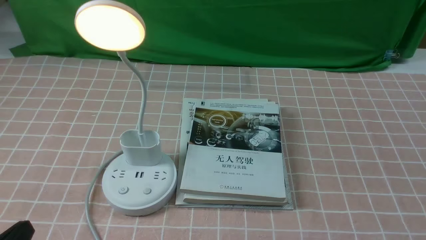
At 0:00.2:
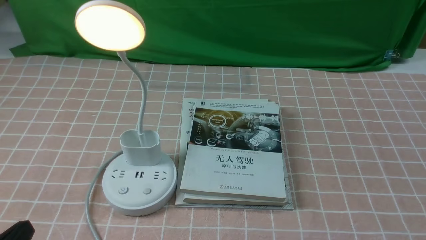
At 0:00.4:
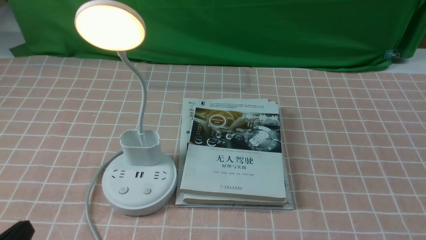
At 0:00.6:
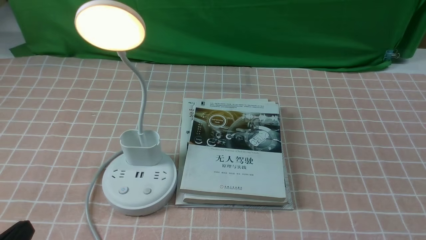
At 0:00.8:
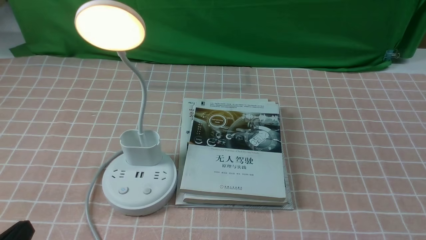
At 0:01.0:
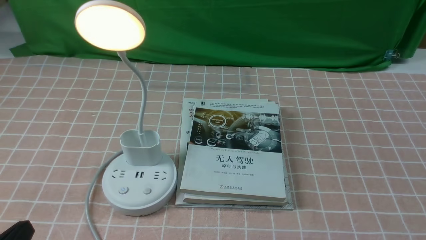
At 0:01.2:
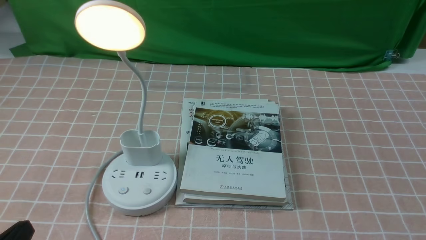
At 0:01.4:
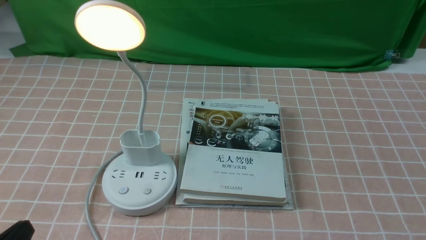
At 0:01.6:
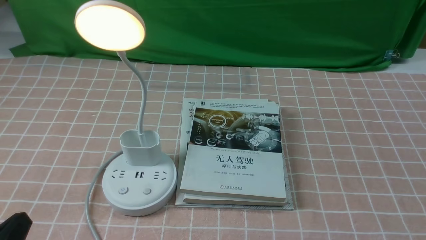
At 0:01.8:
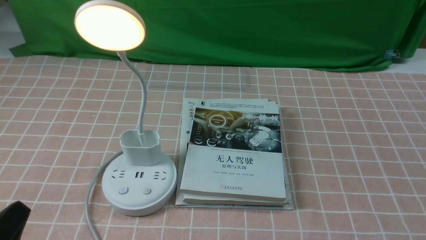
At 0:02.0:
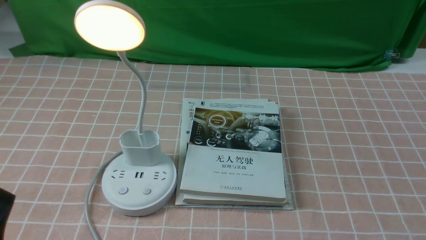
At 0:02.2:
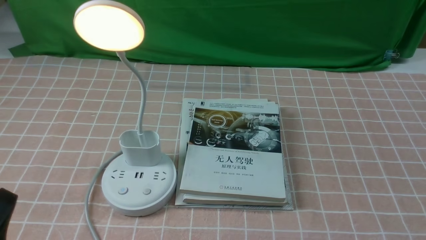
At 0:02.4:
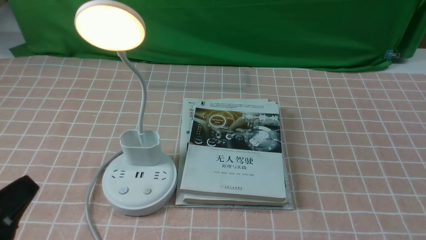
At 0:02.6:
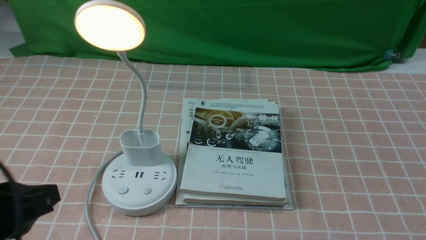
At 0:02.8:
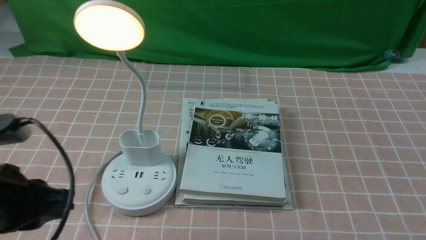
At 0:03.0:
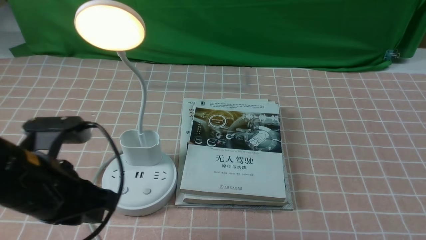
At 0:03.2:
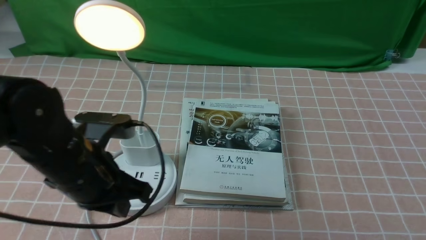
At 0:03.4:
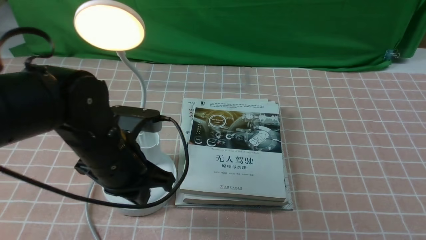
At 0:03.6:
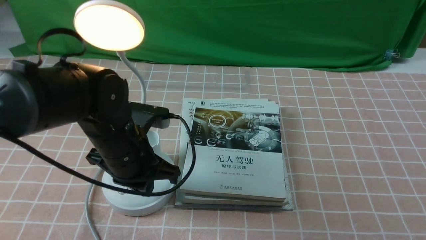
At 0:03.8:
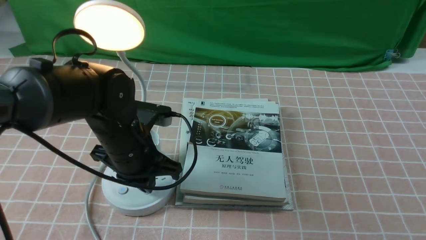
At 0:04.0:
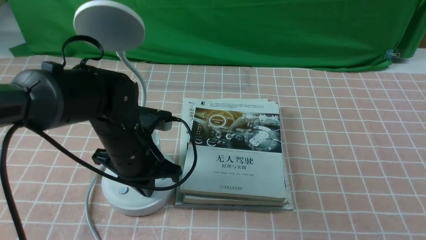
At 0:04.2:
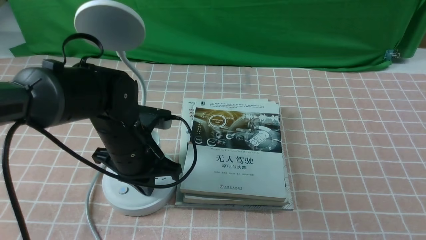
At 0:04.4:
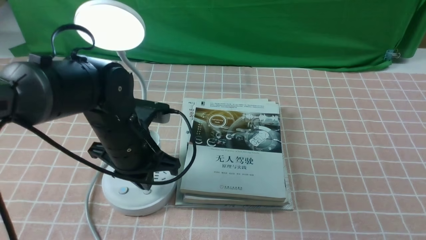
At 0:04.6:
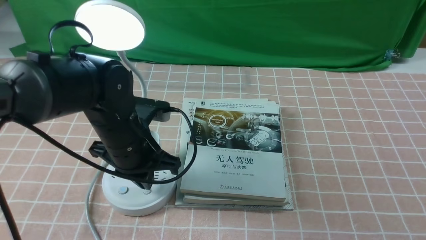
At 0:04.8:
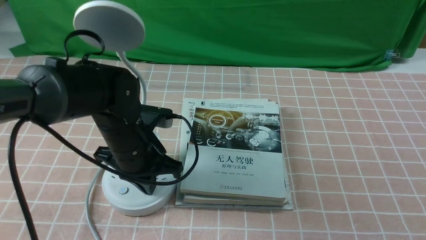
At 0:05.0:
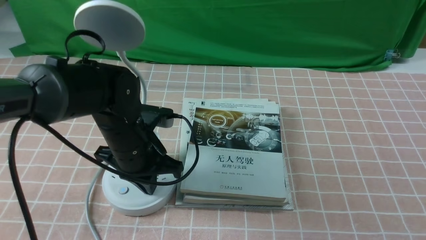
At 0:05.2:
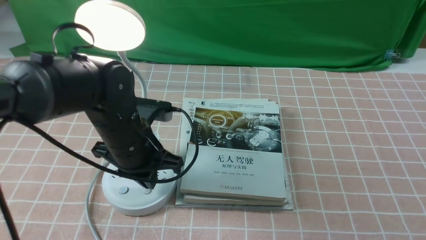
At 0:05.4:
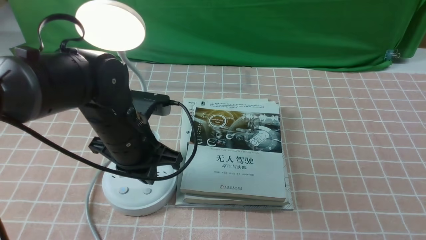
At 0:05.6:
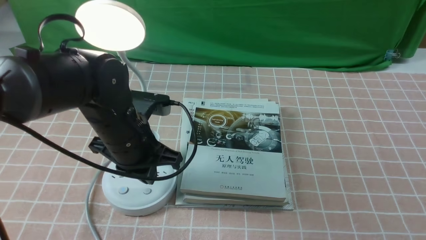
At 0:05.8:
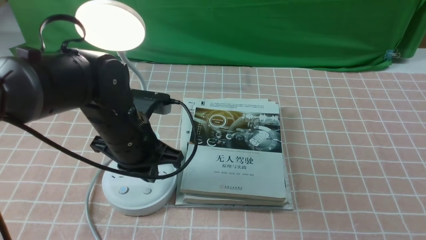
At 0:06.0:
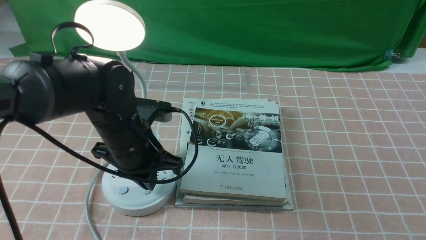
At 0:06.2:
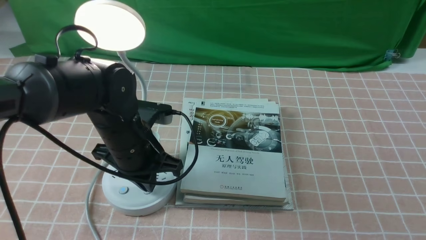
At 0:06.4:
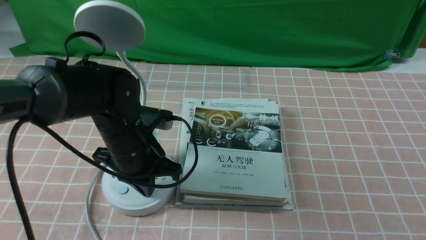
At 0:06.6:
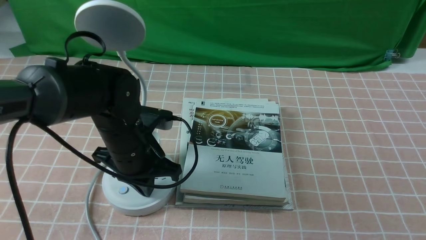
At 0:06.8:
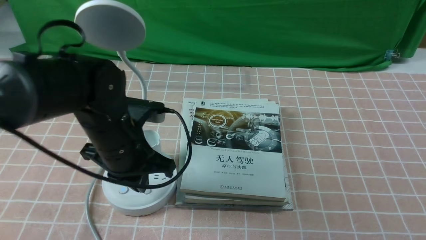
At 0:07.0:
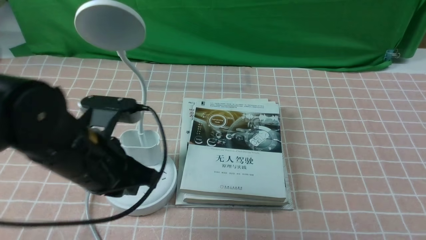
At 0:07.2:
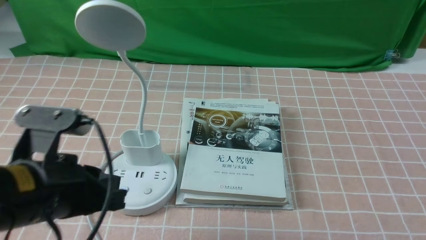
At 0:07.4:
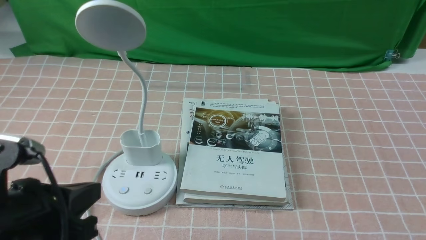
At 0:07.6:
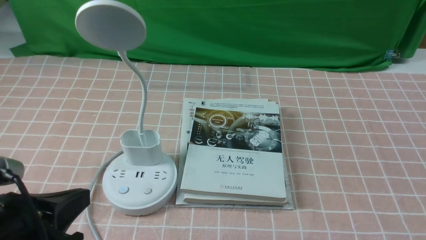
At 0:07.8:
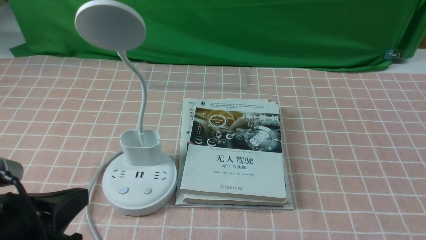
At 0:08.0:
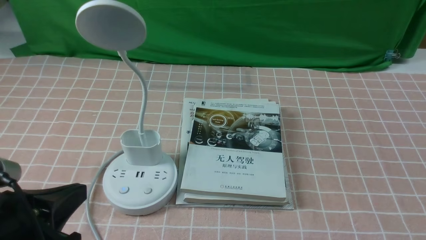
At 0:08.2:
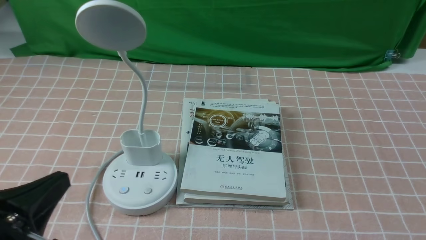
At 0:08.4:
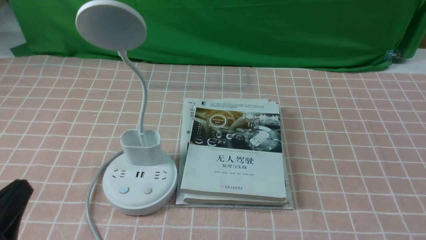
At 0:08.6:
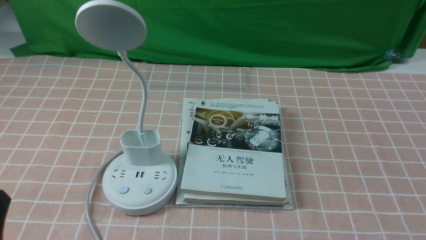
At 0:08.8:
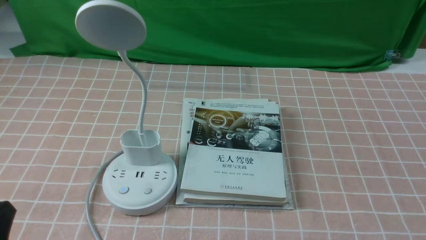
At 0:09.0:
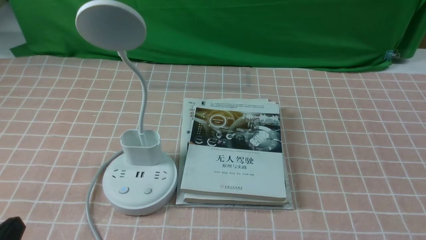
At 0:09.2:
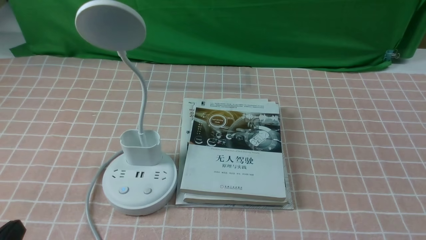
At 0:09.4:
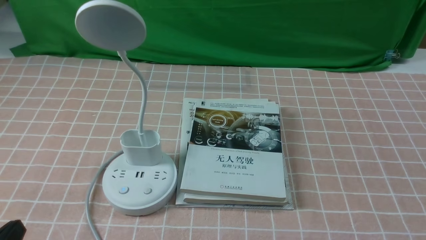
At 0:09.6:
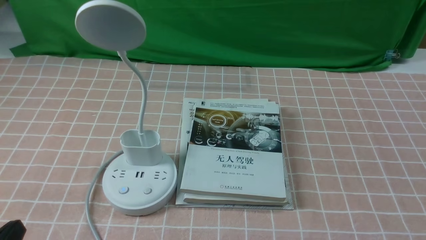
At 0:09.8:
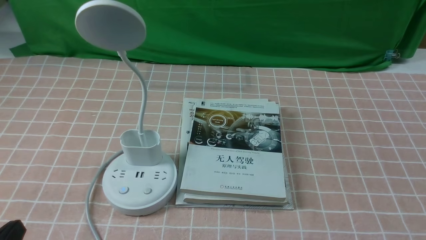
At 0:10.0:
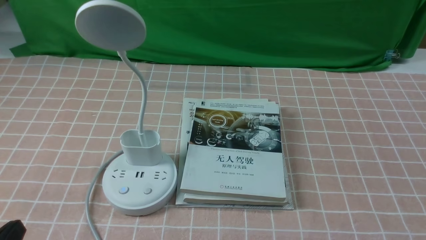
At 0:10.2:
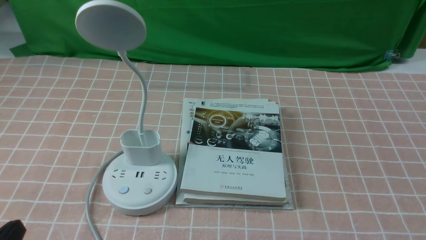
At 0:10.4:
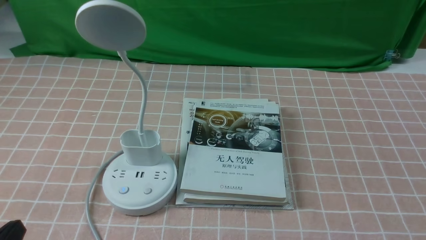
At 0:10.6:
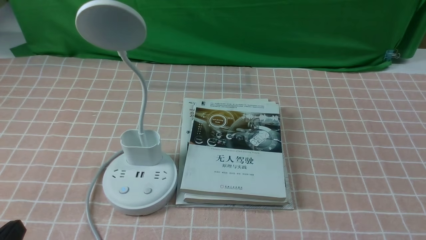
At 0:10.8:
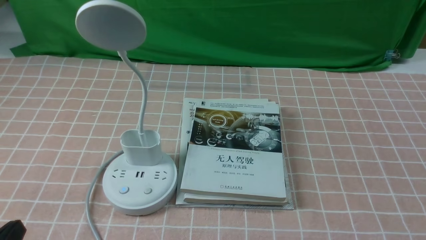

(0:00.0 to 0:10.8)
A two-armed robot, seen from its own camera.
Task of the whole recording: turn off the table lamp on the pink coffee tablecloth by hand.
Step, 0:00.0 - 0:06.8: use the left arm to press the button switch on the lamp holder.
0:01.6 - 0:03.0: The left gripper moves forward, upward and to the right, about 15 cm.
0:03.0 - 0:04.6: The left gripper is displaced forward, to the right and downward by about 15 cm.
0:04.6 - 0:06.2: There are only small adjustments of the grippers.
0:06.2 - 0:07.8: The left gripper shifts about 20 cm backward and to the left.
0:07.8 - 0:09.2: The left gripper goes approximately 10 cm downward and backward.
0:09.2 - 0:10.8: The two grippers keep their place.

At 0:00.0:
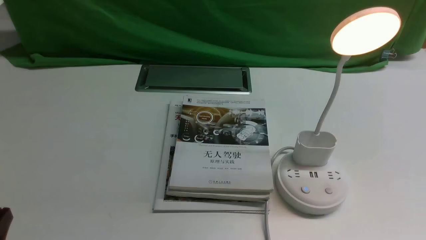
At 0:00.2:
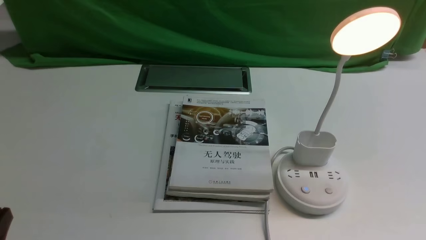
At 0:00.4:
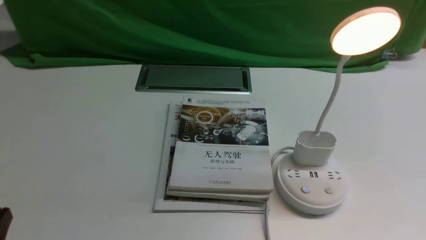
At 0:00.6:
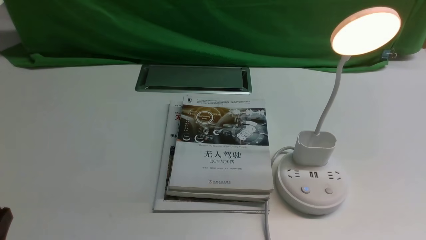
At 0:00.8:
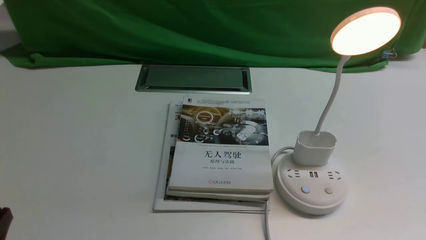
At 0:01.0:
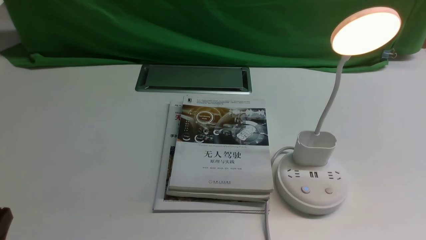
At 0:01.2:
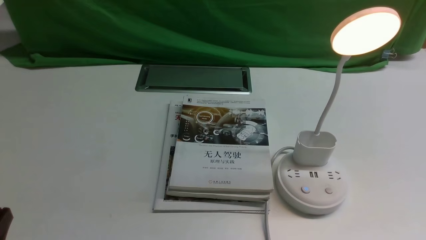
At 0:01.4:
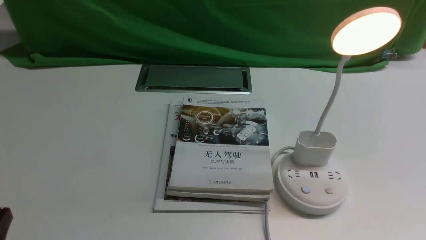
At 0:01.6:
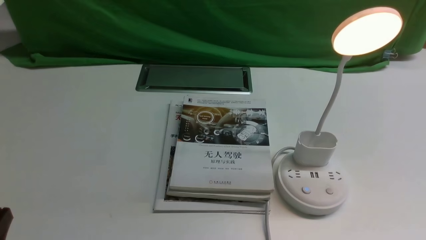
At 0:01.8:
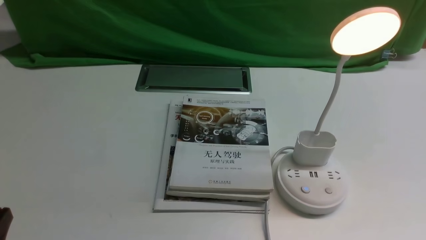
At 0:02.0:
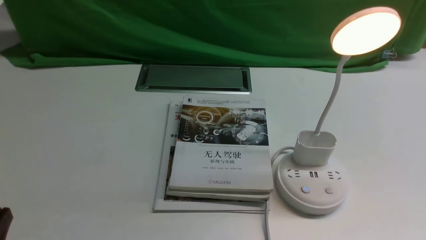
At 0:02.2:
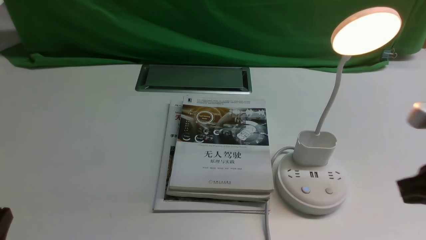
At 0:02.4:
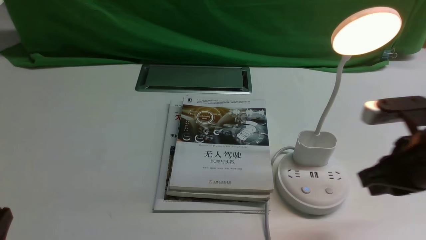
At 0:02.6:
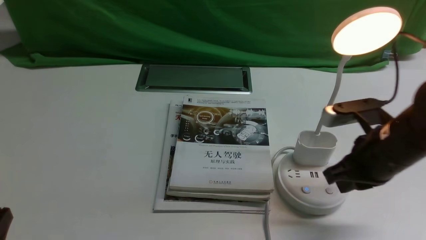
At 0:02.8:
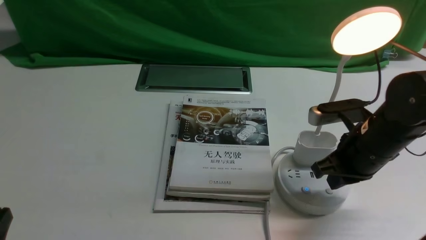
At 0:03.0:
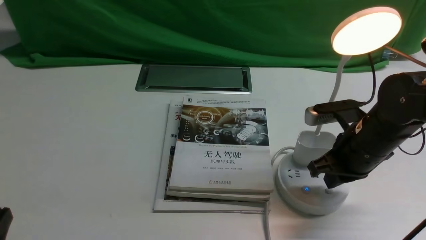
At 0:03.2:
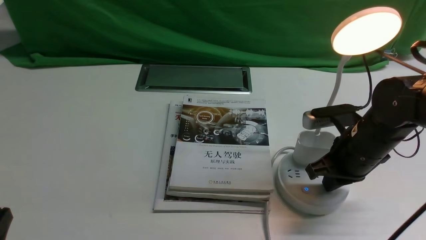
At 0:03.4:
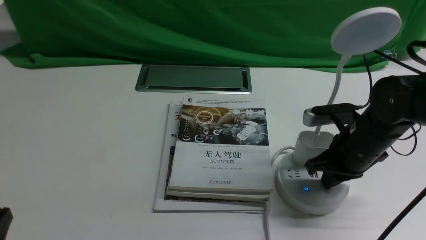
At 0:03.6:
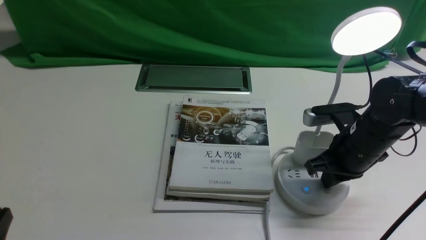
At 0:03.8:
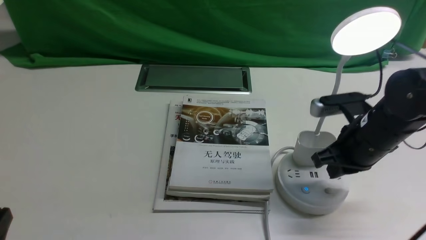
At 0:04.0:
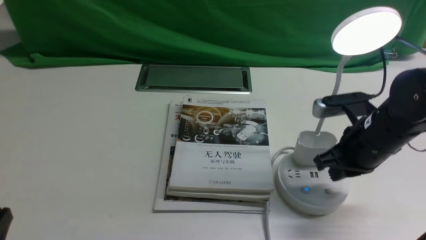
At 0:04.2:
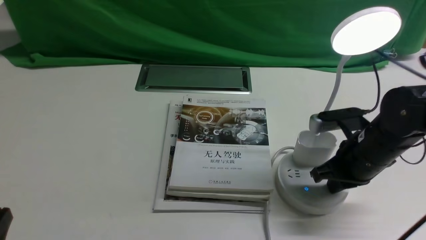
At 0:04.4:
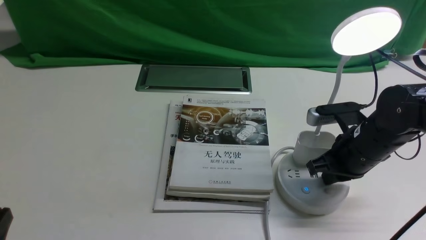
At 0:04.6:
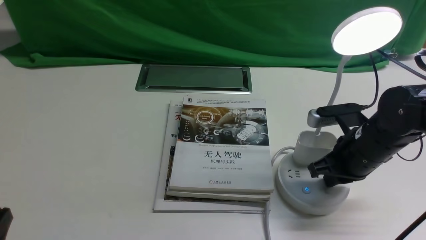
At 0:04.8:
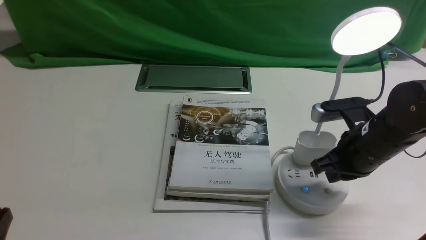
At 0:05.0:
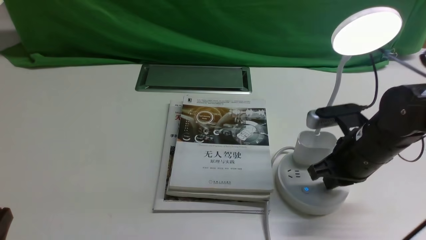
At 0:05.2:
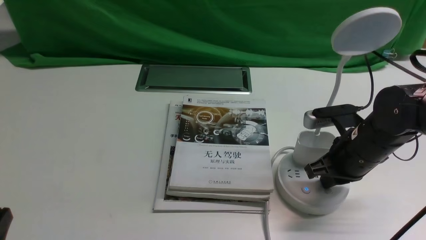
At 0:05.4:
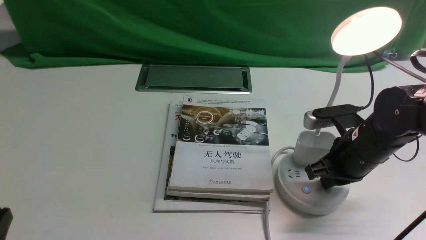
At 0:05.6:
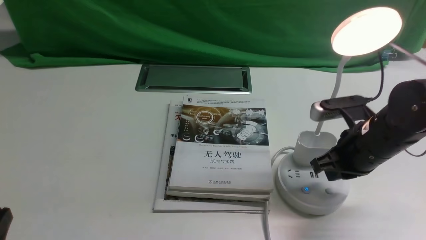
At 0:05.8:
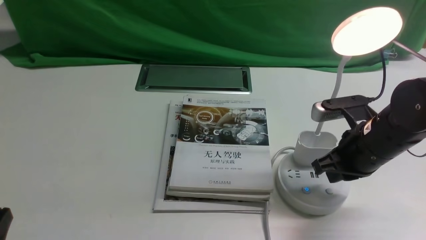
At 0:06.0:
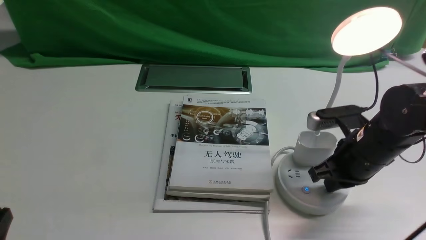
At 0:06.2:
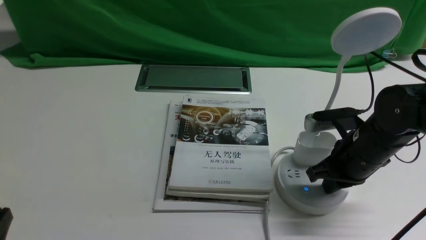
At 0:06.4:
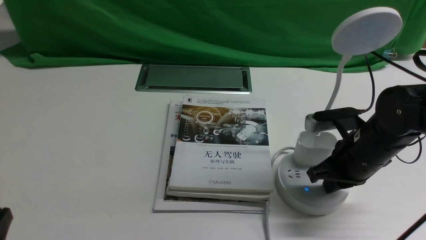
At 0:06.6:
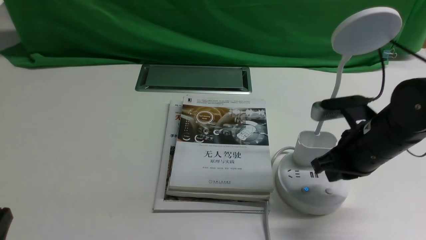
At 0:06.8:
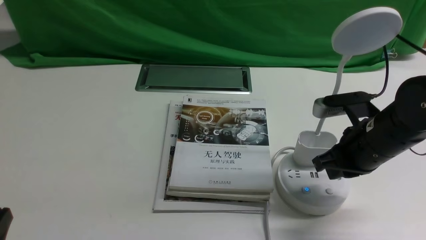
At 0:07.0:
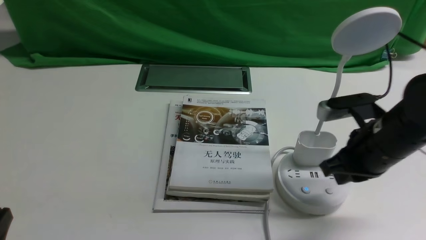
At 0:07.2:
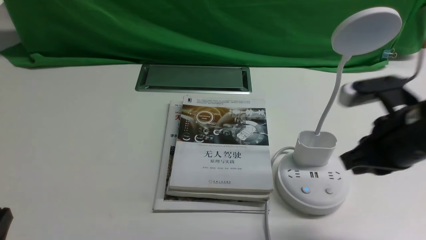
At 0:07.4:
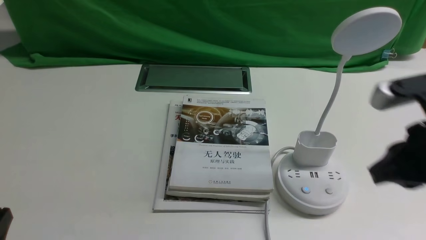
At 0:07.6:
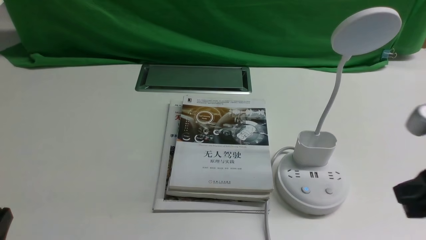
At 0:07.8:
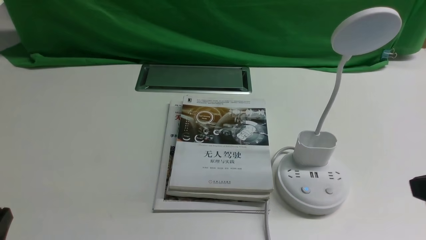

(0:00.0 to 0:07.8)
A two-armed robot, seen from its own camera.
Task of the whole recording: turn off the desk lamp on the white desktop by hand.
Step, 0:00.0 - 0:06.8: use the right arm to press the button switch on the lamp holder.
0:01.6 - 0:03.2: The right gripper moves forward and to the left, about 25 cm, and closes.
0:03.2 - 0:06.2: There are only small adjustments of the grippers.
0:06.2 - 0:07.8: The right gripper travels backward and upward by some 20 cm.
